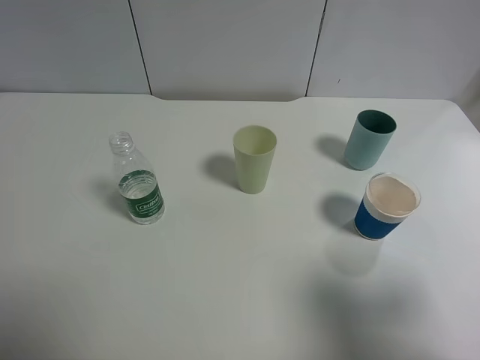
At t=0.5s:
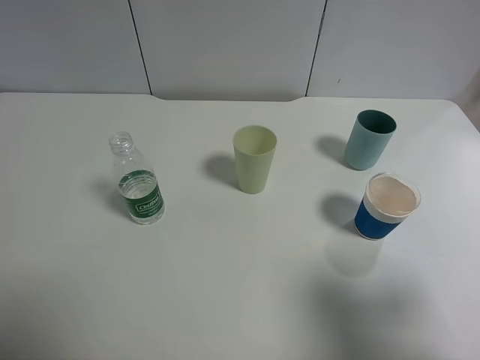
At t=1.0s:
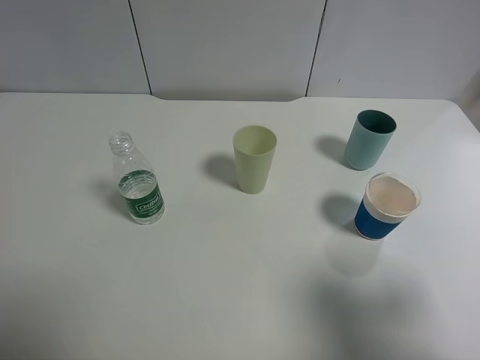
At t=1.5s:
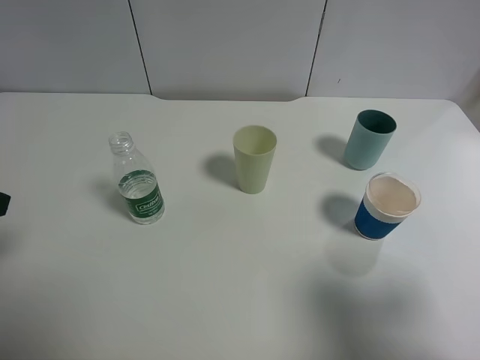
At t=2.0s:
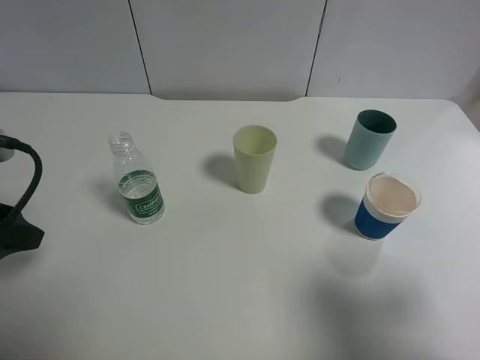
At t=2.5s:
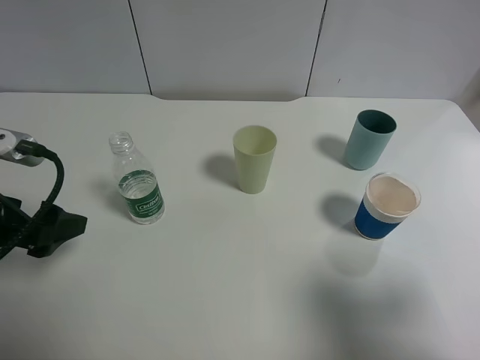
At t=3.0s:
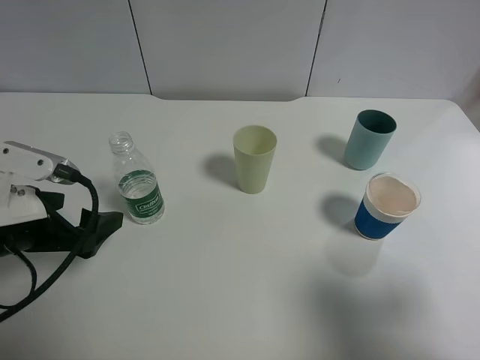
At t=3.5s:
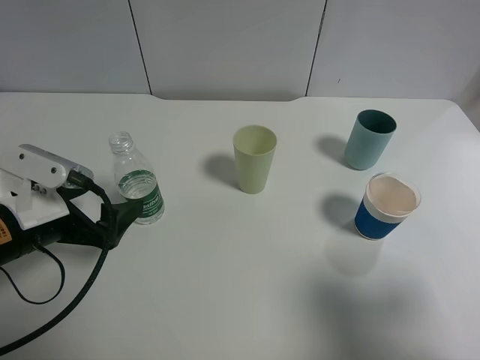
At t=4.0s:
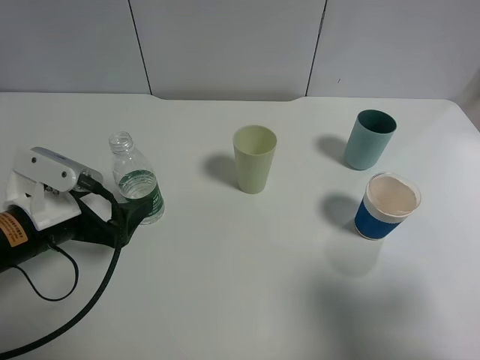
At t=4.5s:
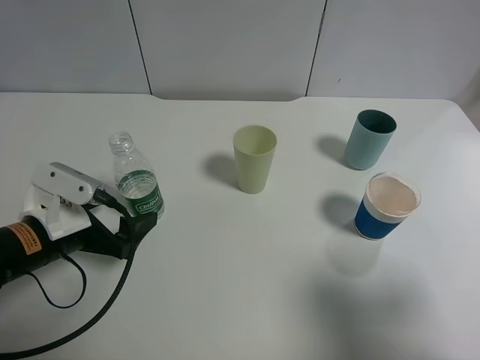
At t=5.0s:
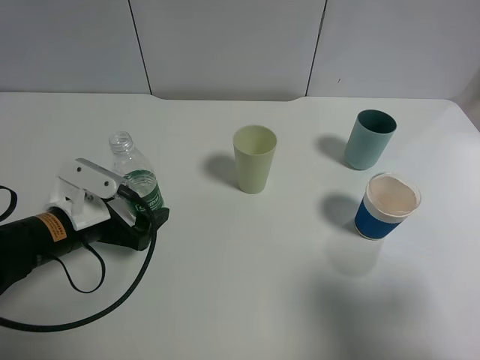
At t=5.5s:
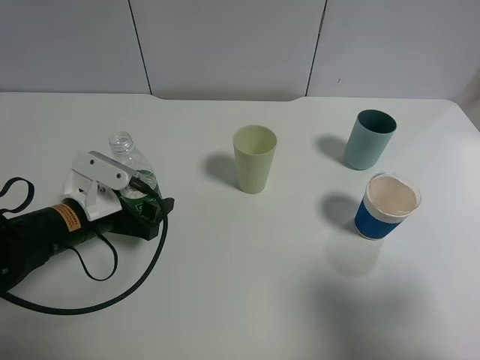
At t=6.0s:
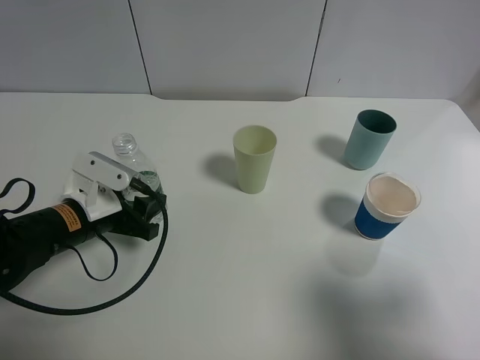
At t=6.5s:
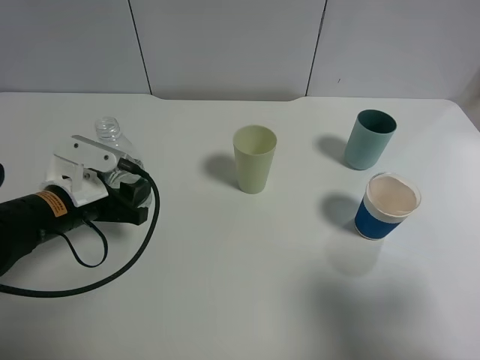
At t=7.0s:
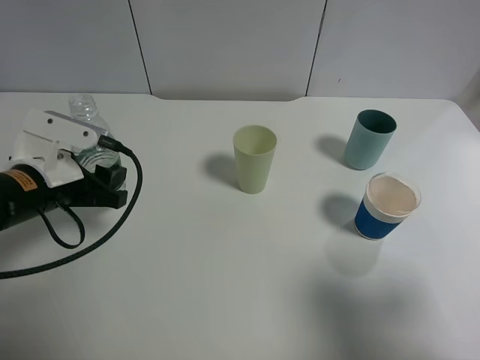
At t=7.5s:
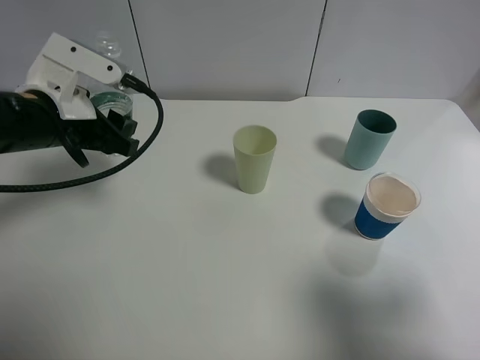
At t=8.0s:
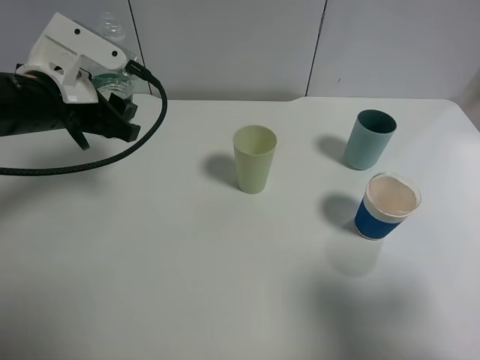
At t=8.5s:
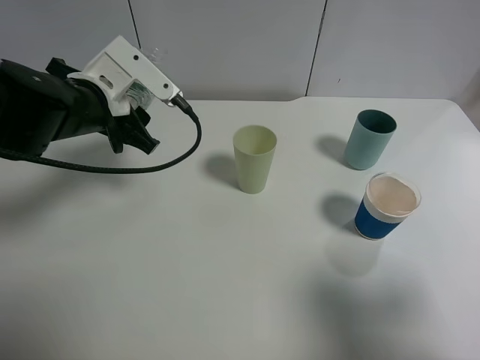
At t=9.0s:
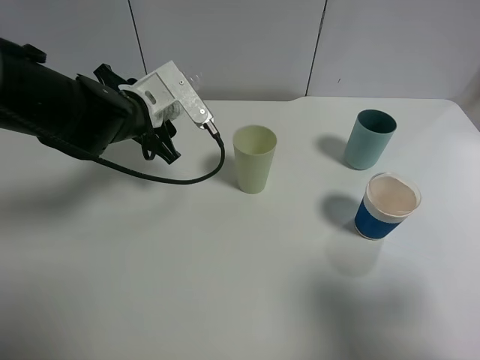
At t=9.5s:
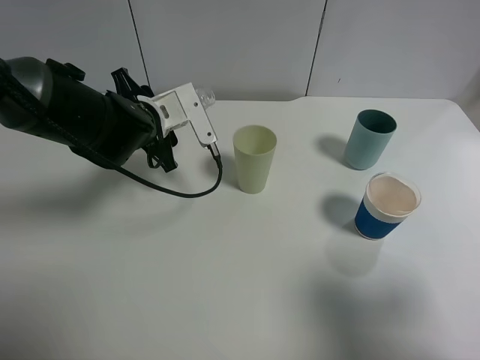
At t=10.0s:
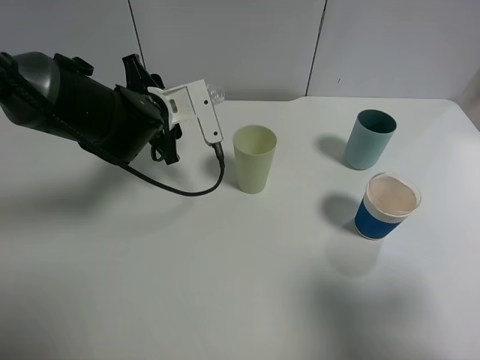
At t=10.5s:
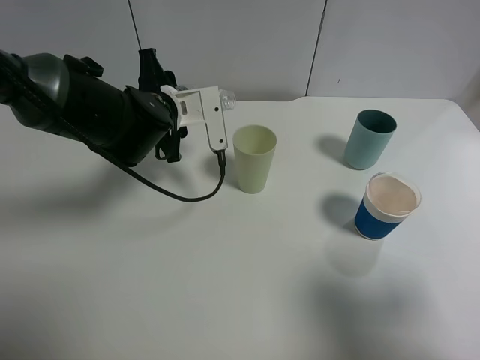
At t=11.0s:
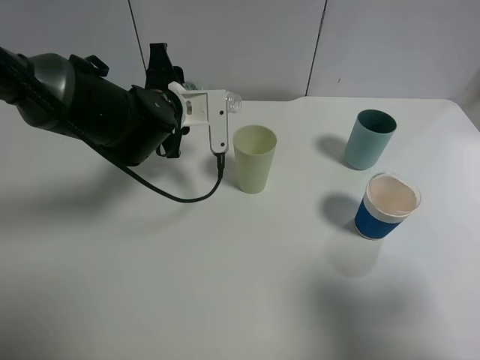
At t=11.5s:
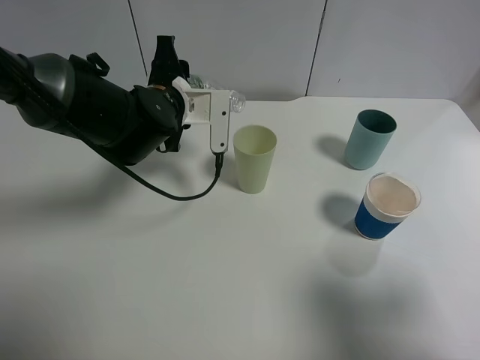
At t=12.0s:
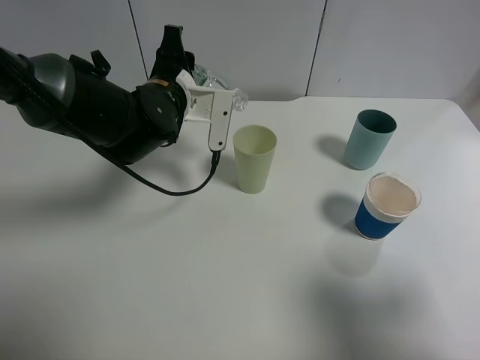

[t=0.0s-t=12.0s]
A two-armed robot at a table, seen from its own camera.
Task of the whole recording: use a clamp to hold the bottle of the drink, pour the beverage into a random cup, then clamp the cup containing the drink and pour the drink into another random cup.
Step, t=0.0s to t=6.5s: Pick up the water bottle with left gripper.
t=0.0s to t=2.0s: The left gripper is displaced forward by some 15 cm.
t=2.0s to t=4.0s: The left gripper shifts approximately 10 cm downward and to the right.
t=4.0s to t=6.0s: The left gripper changes place by some 5 cm, and closes.
t=6.0s to t=8.0s: The left gripper moves upward, about 15 cm.
t=8.0s to t=10.0s: The left gripper is displaced to the right, downward and forward by about 10 cm.

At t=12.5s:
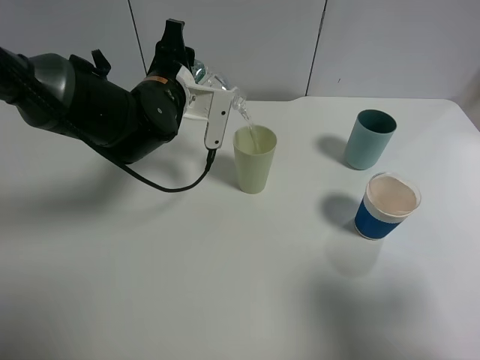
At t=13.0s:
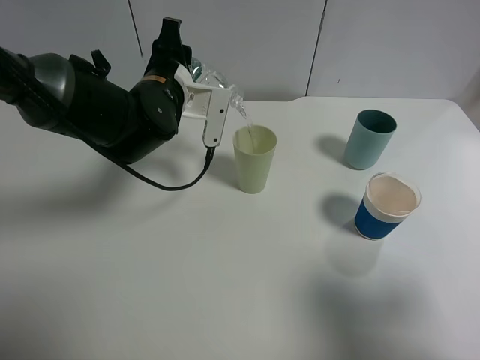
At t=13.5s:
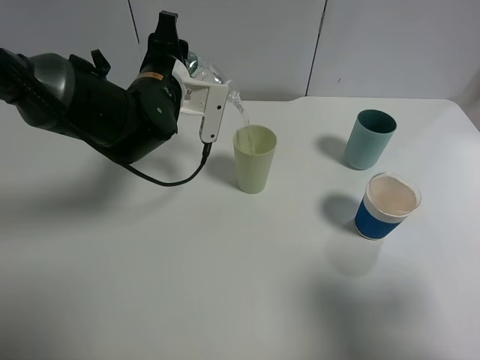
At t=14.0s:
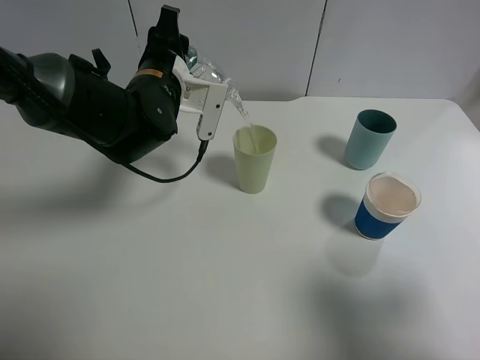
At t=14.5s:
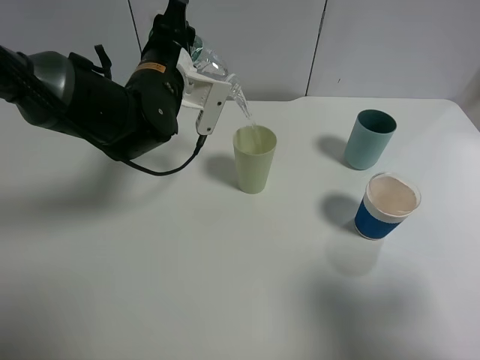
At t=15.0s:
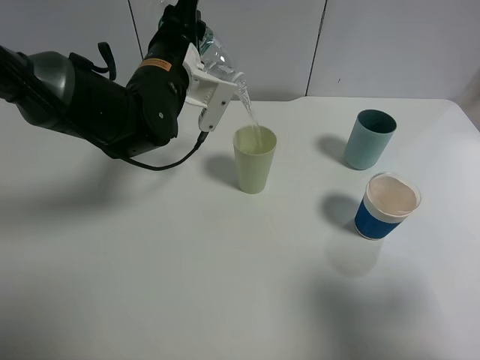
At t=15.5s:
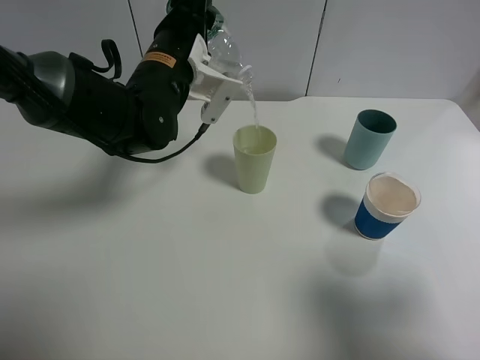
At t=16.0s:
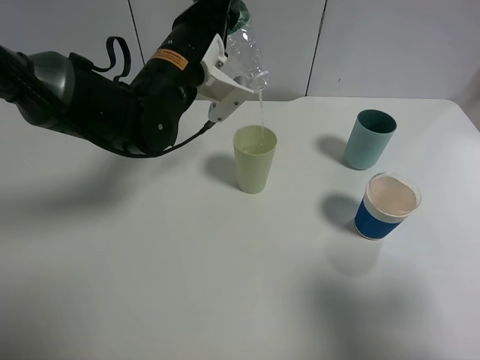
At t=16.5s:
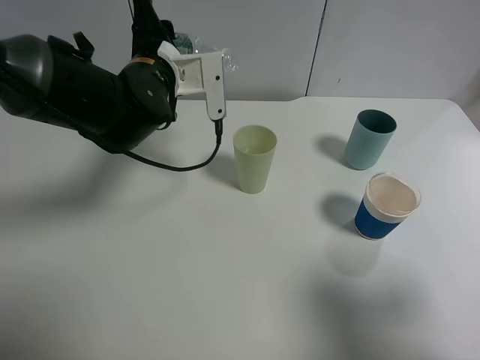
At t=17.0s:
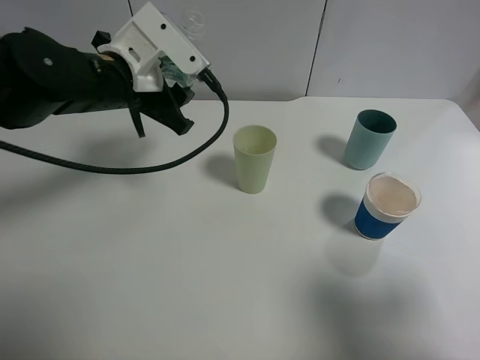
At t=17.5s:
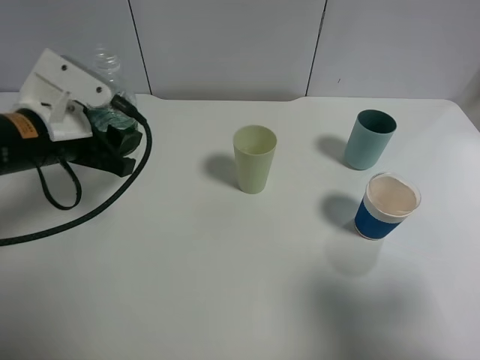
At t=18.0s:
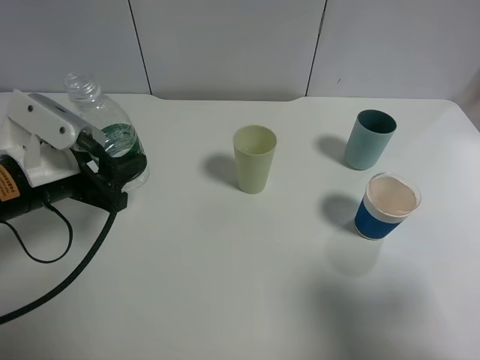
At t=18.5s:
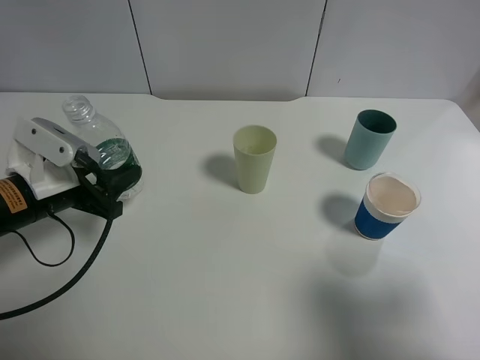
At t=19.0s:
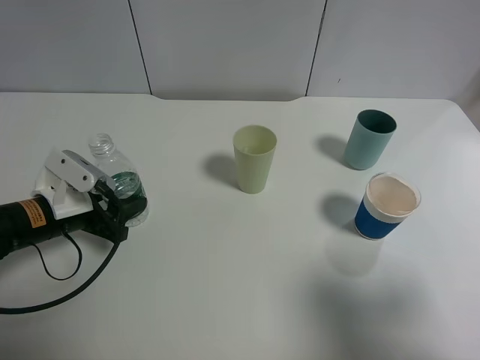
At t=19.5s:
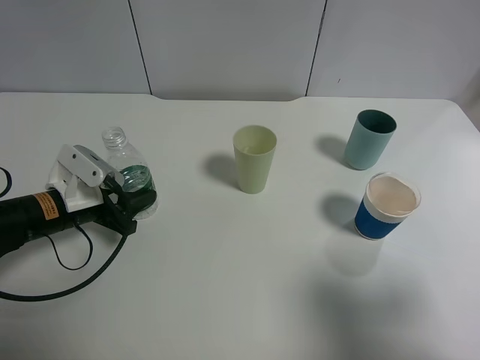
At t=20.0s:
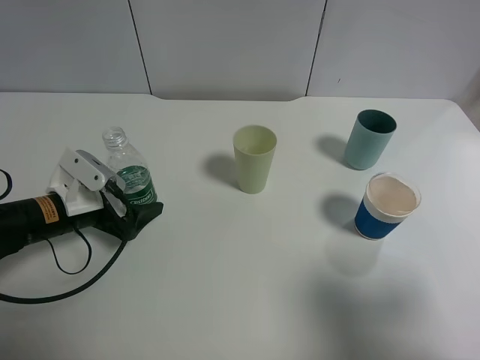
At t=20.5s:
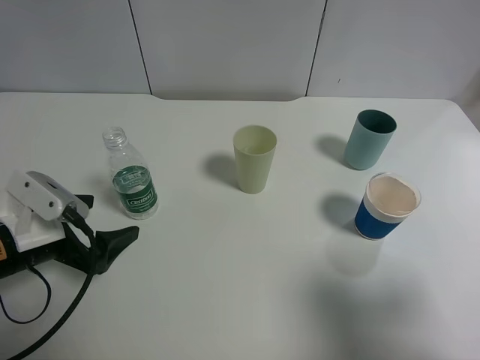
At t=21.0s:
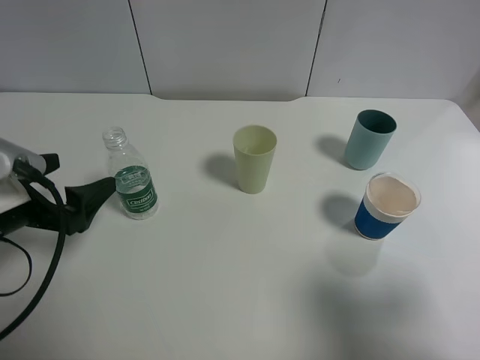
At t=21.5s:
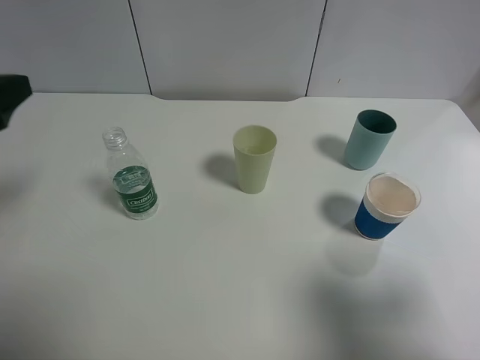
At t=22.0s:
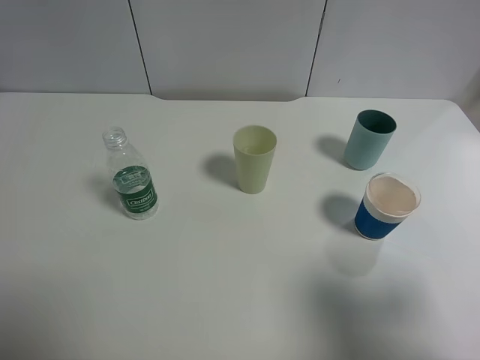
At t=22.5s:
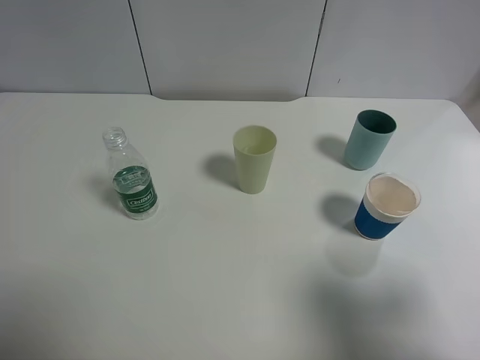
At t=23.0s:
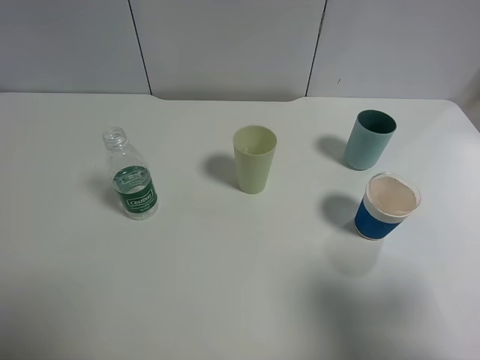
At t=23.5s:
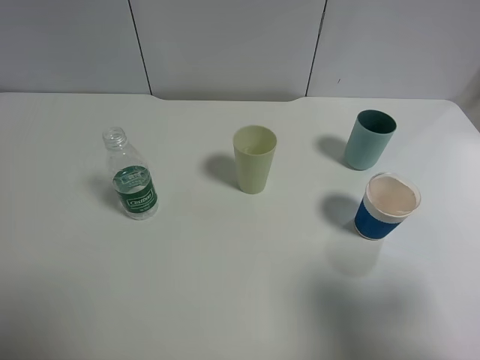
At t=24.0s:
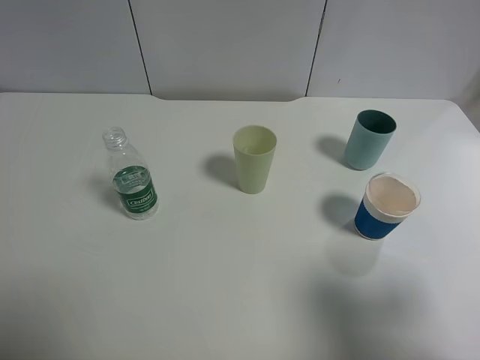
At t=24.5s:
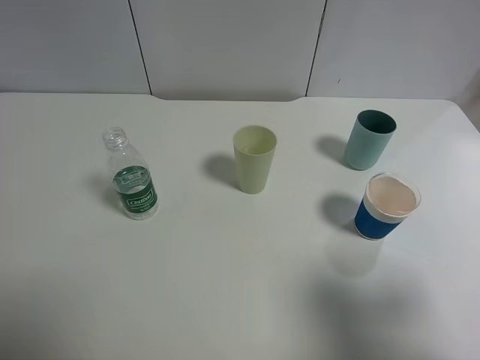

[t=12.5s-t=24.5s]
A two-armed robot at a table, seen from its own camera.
Task of the whole recording: use a clamp to hold the bottle of the drink, pour the beverage into a random cup, then clamp the cup containing the drink and pour the drink into another random cup.
Step, t=12.5s to t=16.5s: Pour the water into the green plastic cup with left gripper.
Step, t=17.0s to t=20.0s: Place the water bottle on the table with left gripper.
t=12.5s to t=14.5s: The grippers move only a little.
t=16.5s to t=18.5s: The left gripper moves backward, to the left and downward, some 20 cm.
t=18.5s to t=20.5s: The left gripper moves approximately 5 cm, and opens.
t=20.5s to t=22.5s: The left gripper travels upward and backward by some 30 cm.

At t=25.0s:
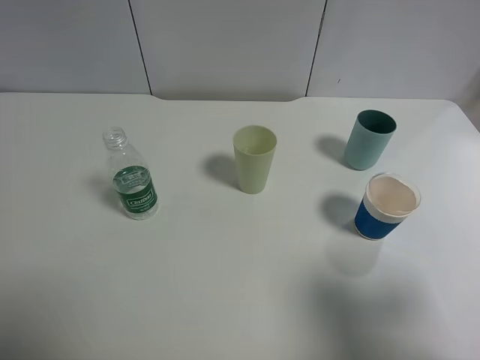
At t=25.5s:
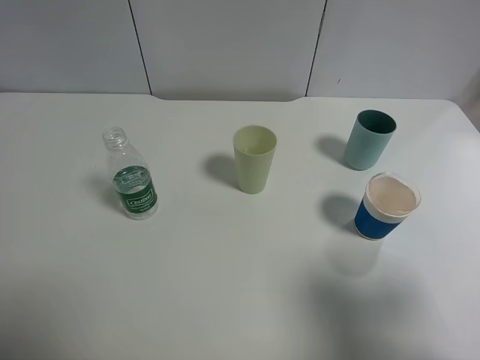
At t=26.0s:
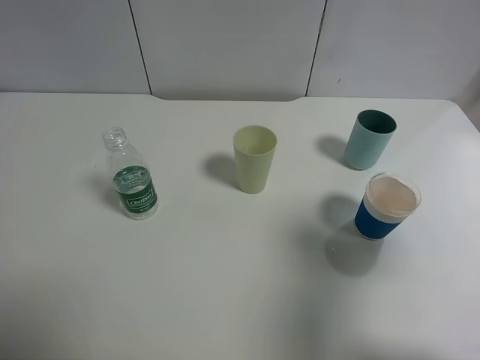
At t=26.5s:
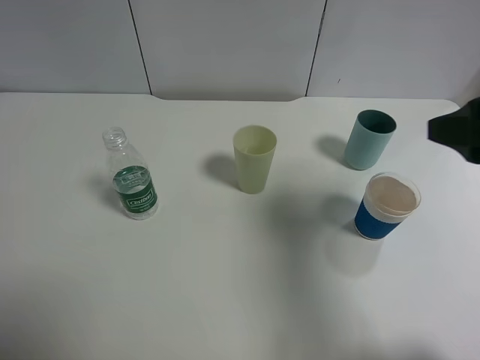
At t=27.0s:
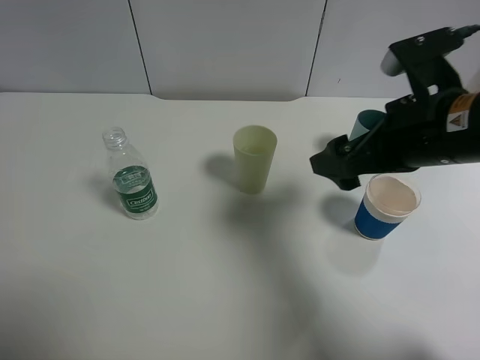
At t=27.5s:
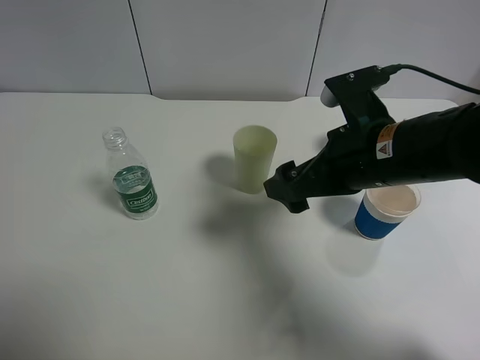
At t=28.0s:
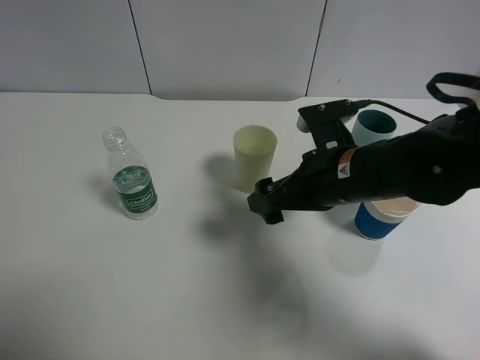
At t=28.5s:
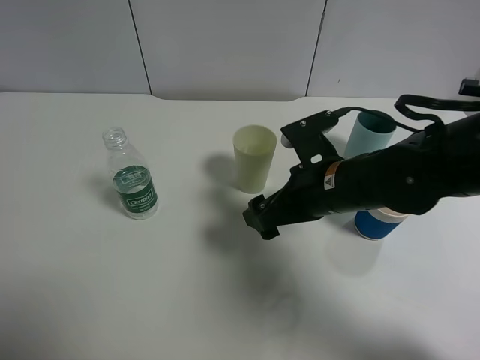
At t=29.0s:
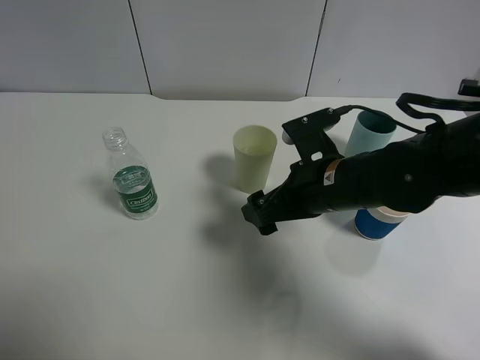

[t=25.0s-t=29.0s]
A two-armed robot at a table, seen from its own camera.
Task of the whole recording: use a clamp to hold the bottle of the drink, pour the beverage into a random cup, then clamp the cup containing the drink and pour the drink into another random cup.
t=25.0s to t=27.0s: The right gripper heads forward and to the left, covering about 20 cm.
t=27.0s to t=29.0s: The right gripper travels downward and to the left by some 15 cm.
